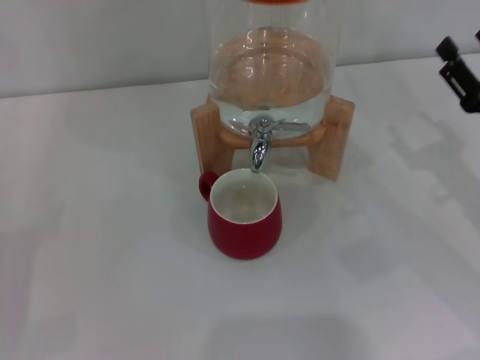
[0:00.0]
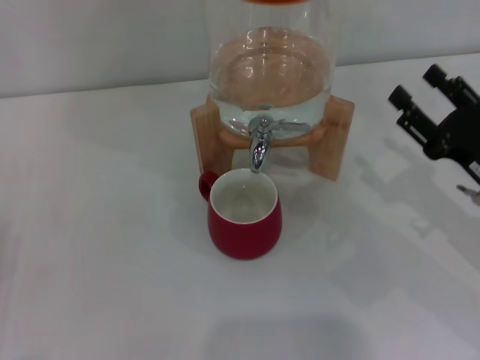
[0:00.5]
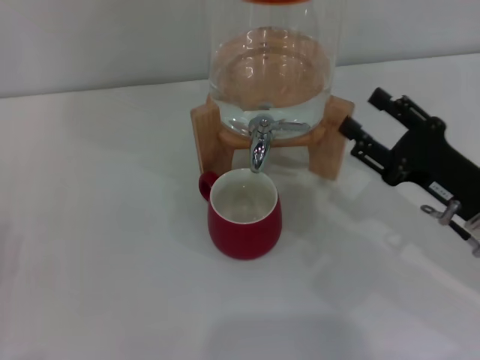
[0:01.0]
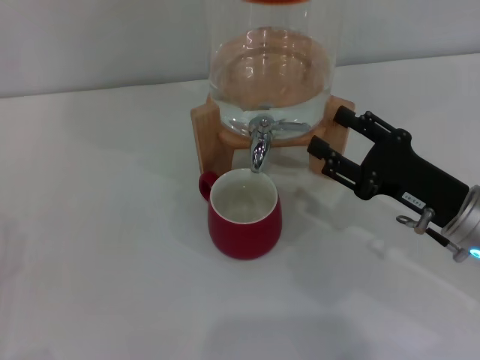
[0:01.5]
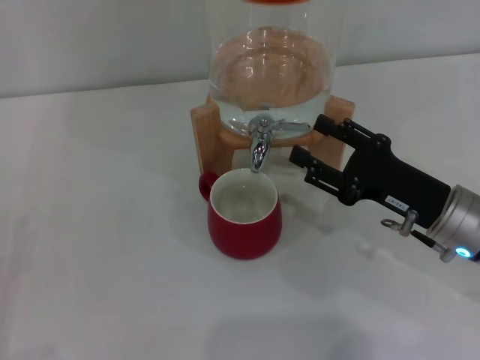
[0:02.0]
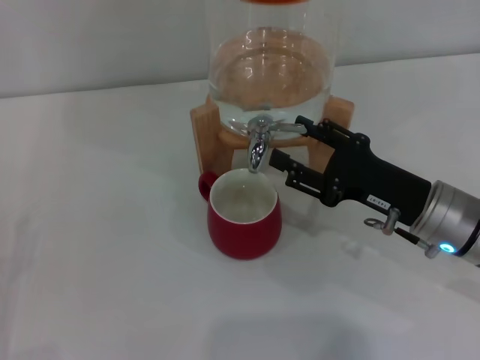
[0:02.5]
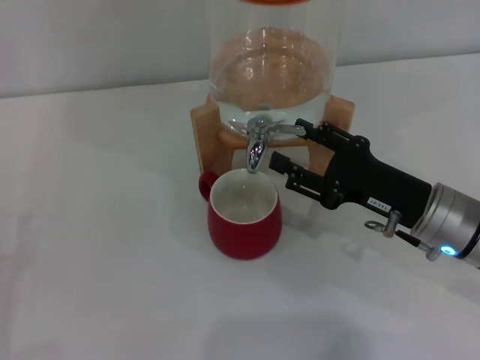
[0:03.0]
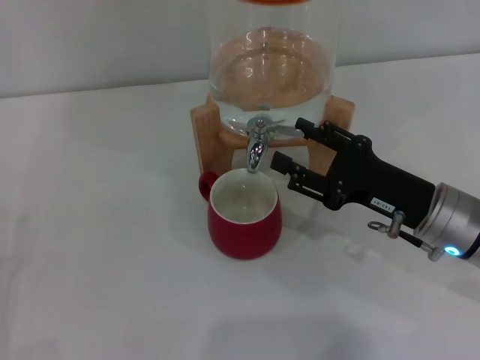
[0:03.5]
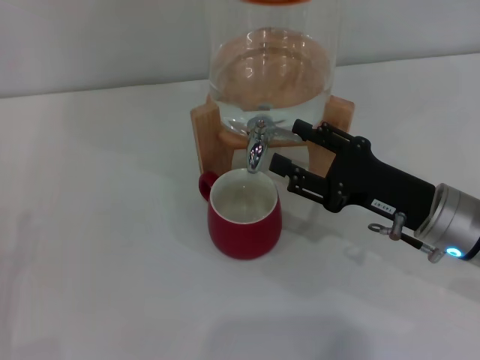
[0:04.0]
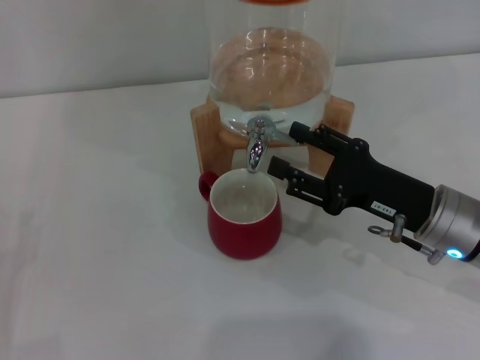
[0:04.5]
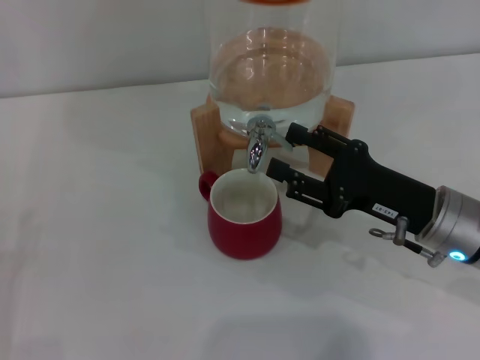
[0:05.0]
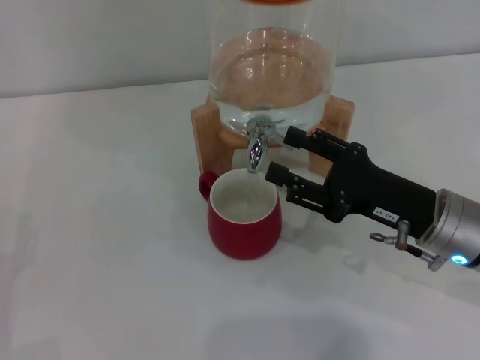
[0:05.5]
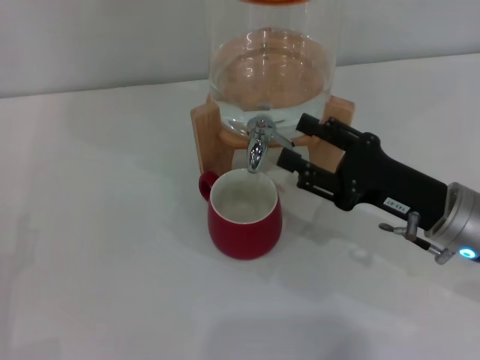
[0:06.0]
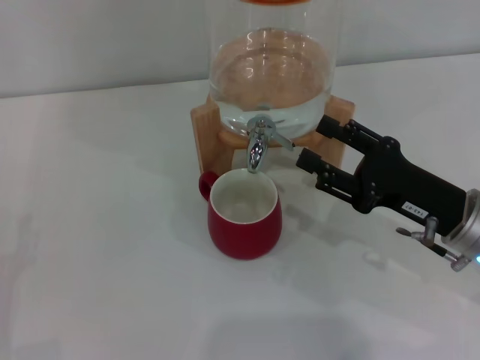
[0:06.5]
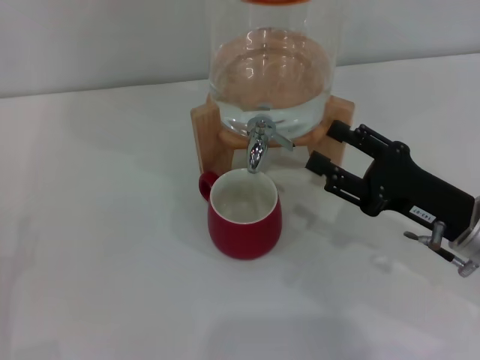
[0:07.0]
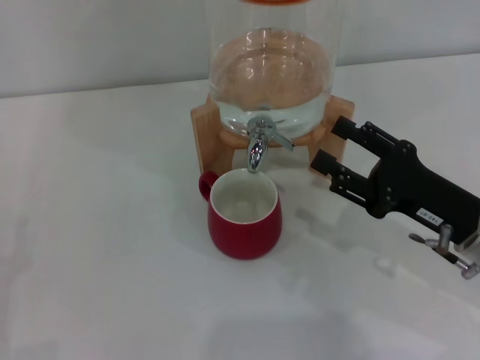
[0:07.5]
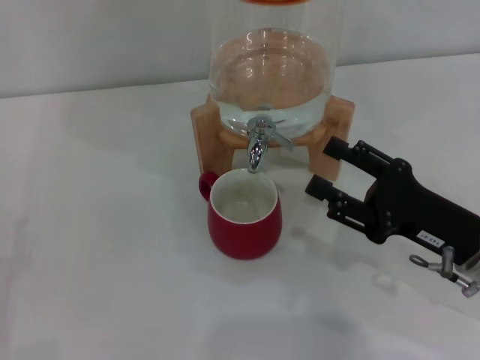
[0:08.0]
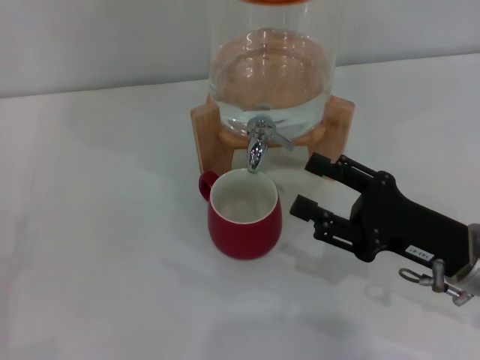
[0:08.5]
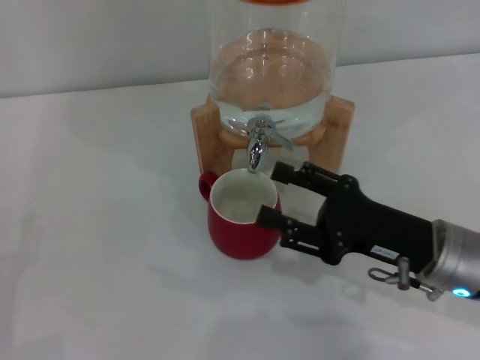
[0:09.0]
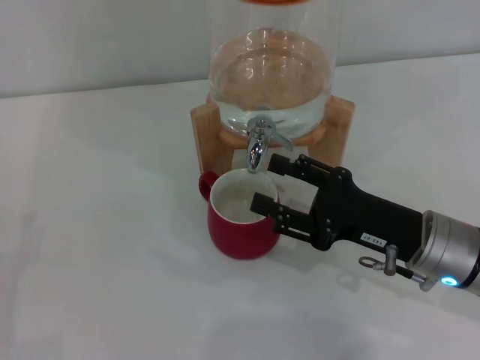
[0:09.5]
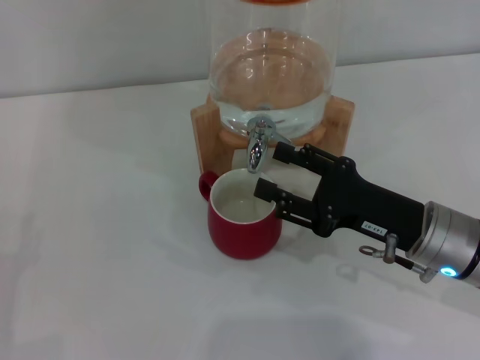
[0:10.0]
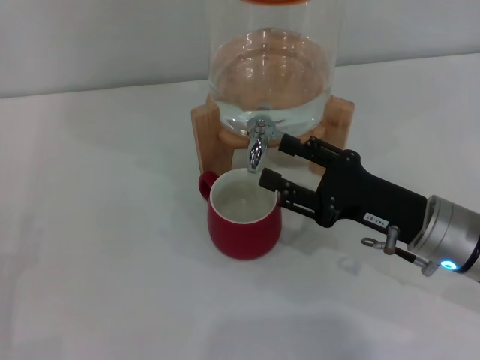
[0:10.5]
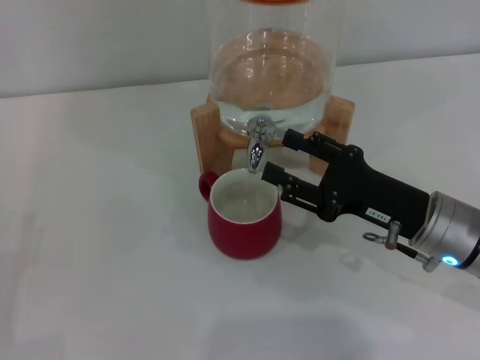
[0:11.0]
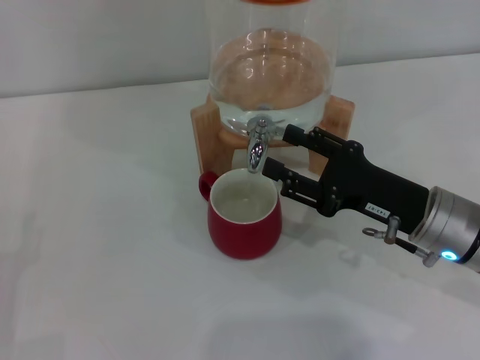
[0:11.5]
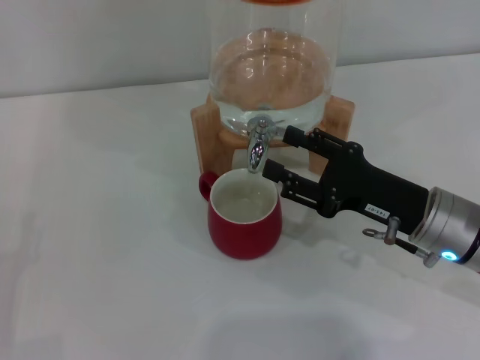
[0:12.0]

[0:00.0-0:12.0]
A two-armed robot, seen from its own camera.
Task of the whole recording: the left gripper pick up the red cup and place it horizontally under the faucet, the right gripper turn on the faucet to fill the cup, and then turn off the faucet.
Step, 0:00.0 to 0:05.5: Open the dispenser valve and fill the cup with water with the right gripper.
0:00.0 to 0:02.0: The right gripper travels to the left by some 10 cm.
0:02.0 to 0:10.0: There are only small adjustments of the grippers.
0:10.0 to 0:12.0: Both grippers stay put.

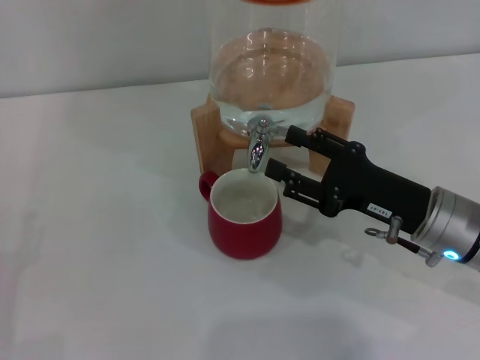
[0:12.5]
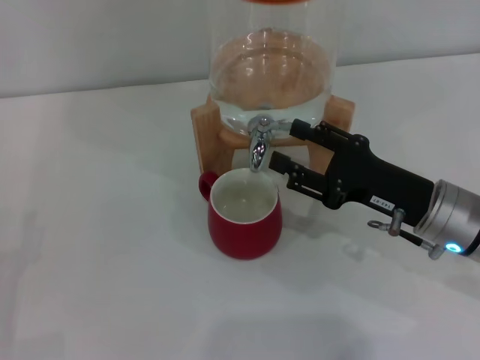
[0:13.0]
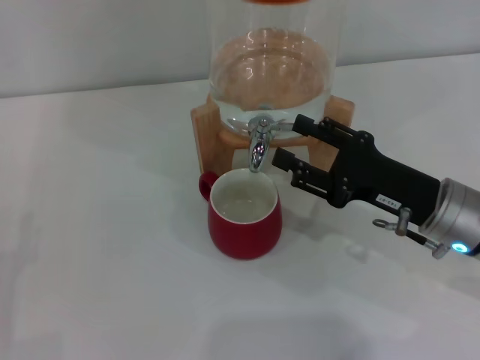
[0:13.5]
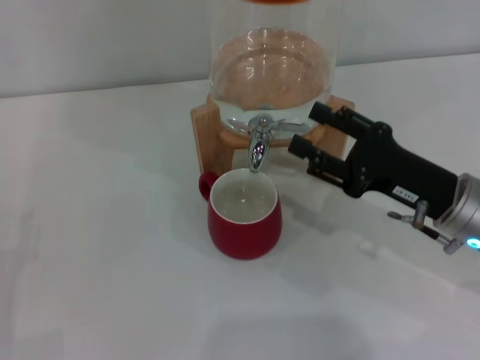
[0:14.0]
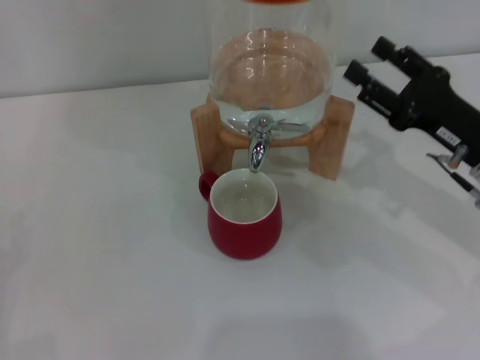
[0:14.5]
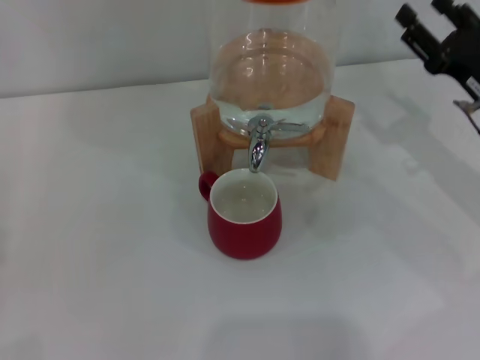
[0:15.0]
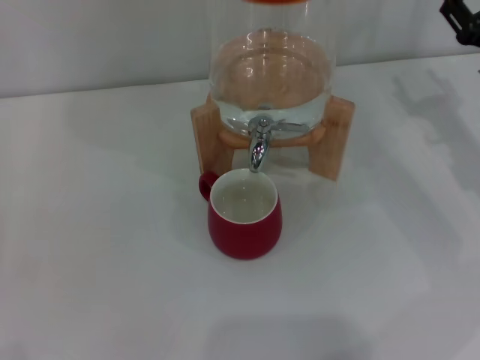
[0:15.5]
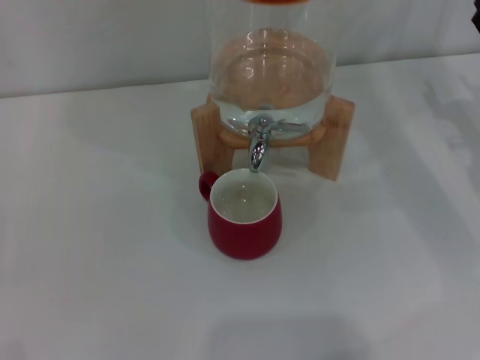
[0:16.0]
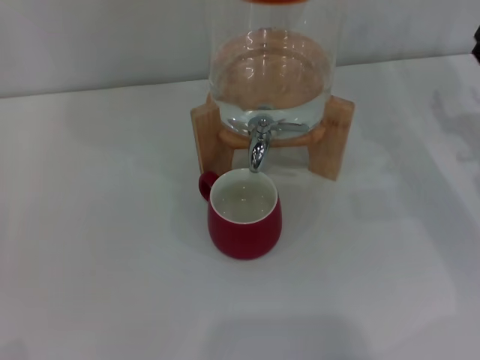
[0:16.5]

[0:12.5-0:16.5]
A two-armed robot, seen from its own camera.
Task of the whole recording: the left gripper pick up the red cup and place it horizontally under the faucet, the right gripper turn on the faucet to fill the cup, and then turn off the faucet.
0:12.5 to 0:14.5: The right gripper goes about 5 cm to the right.
0:14.5 to 0:16.5: The right gripper moves to the right, roughly 5 cm.
